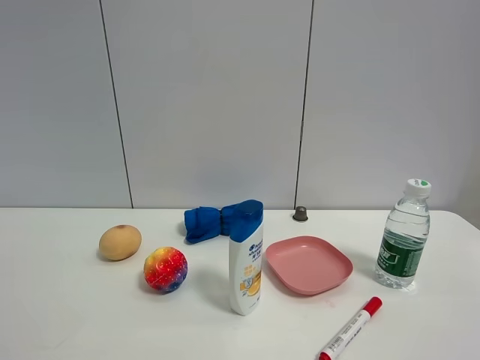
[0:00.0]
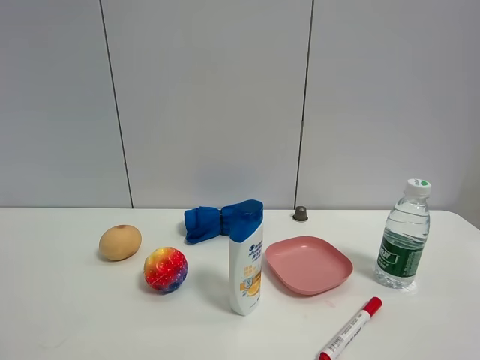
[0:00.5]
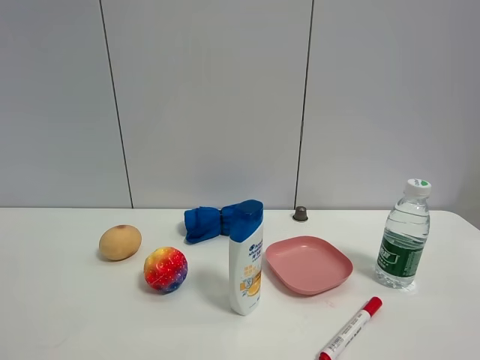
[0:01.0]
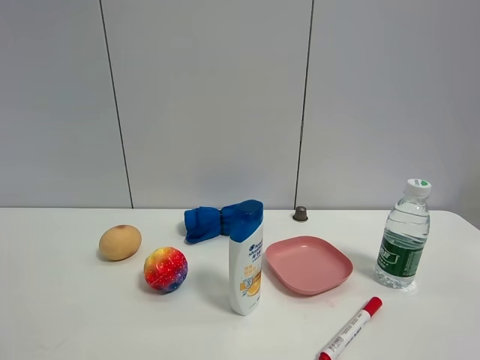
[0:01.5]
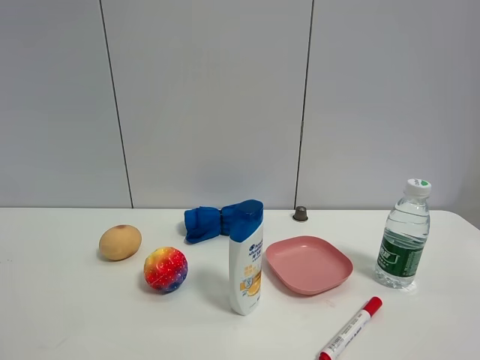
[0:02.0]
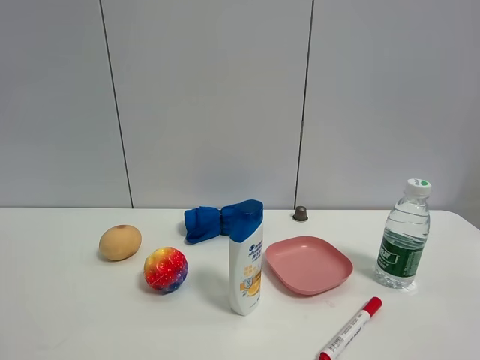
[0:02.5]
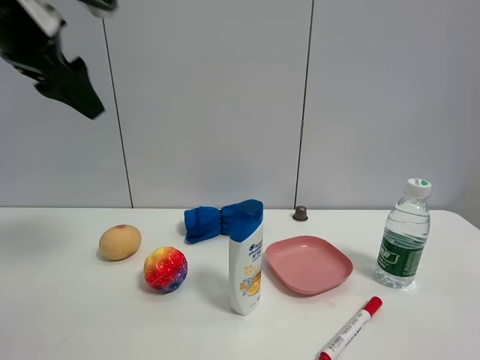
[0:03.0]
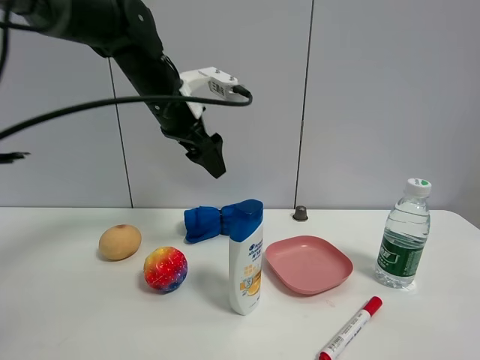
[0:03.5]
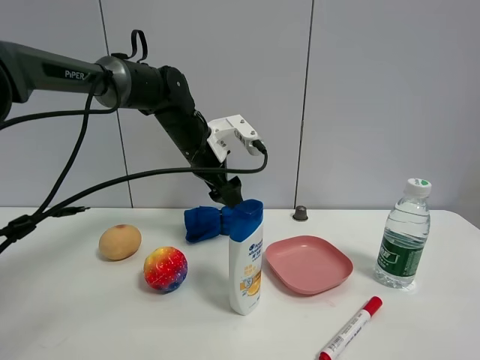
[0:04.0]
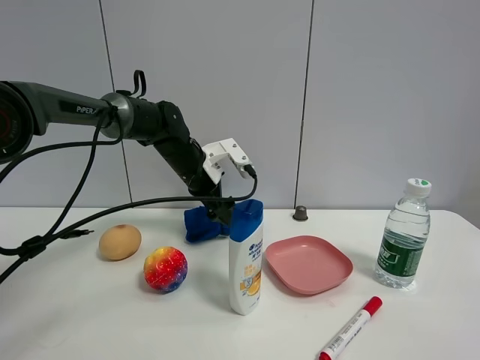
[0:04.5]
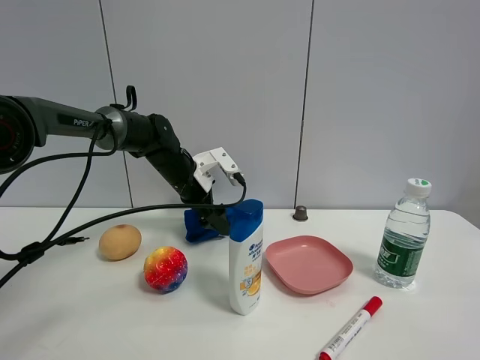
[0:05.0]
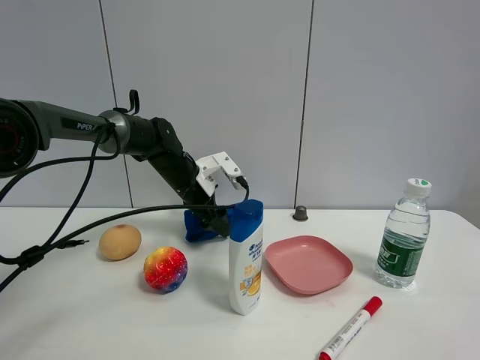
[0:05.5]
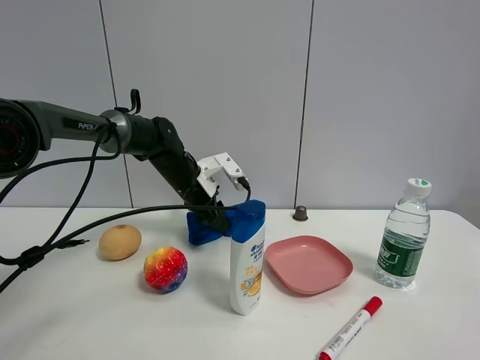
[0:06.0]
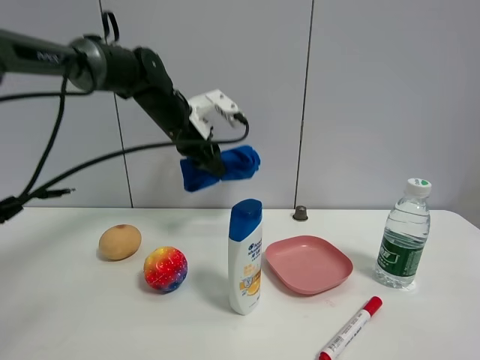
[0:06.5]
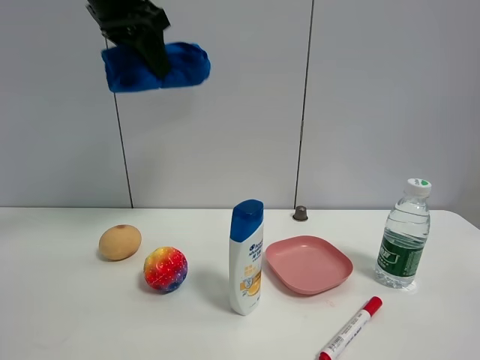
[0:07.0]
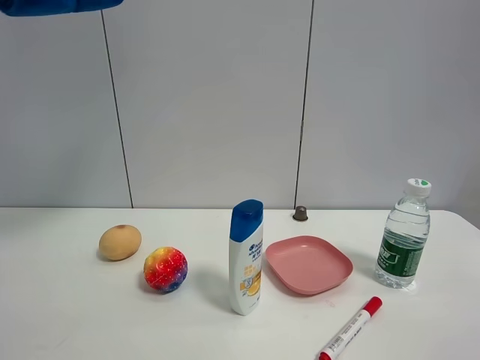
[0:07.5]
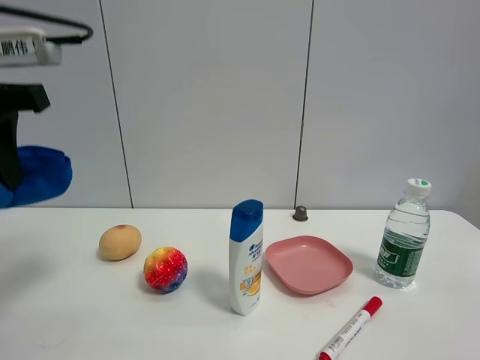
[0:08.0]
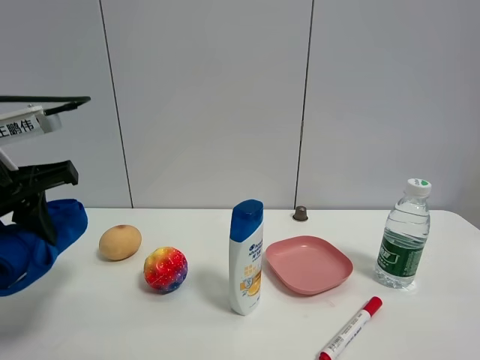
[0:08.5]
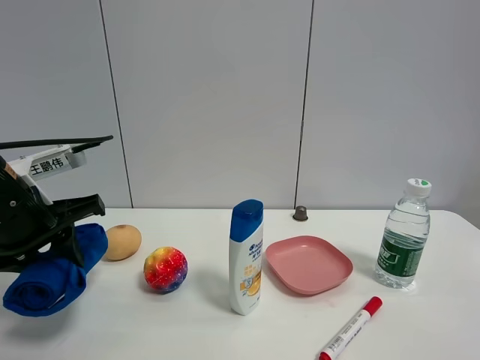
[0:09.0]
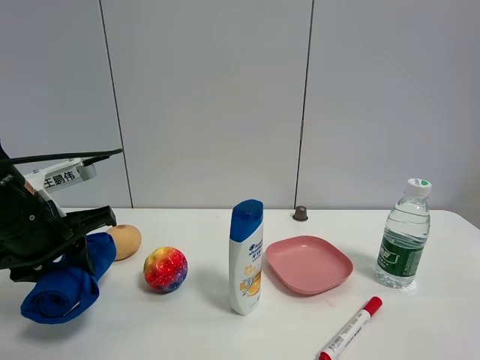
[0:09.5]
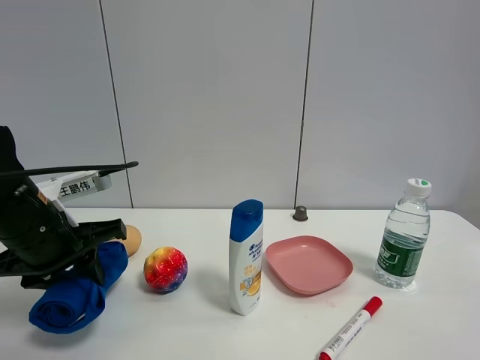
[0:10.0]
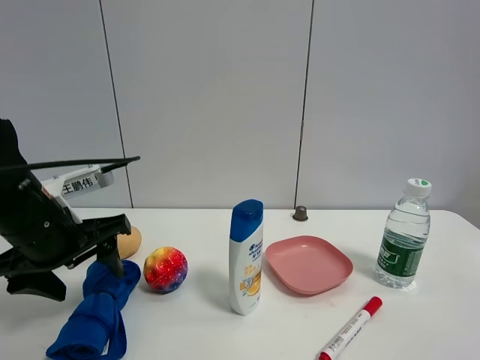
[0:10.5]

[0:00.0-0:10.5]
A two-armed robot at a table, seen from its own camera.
Task of the whole recording: the gripper move the object.
Step, 0:00.0 to 0:06.0: Grasp the blue towel with the left gripper.
0:02.0 to 0:04.0: The left gripper heads forward and to the right, covering about 50 cm.
0:04.0 to 0:06.5: The left gripper closes up.
0:06.5 to 0:08.5: The left gripper shifts some 30 cm backward and to the left, and reaches some 25 cm upward, then returns.
0:08.5 to 0:10.5: The left gripper moves downward, some 5 cm, and opens.

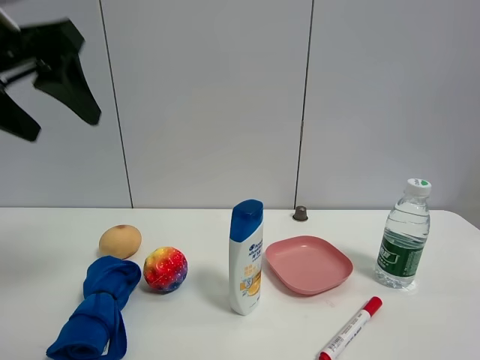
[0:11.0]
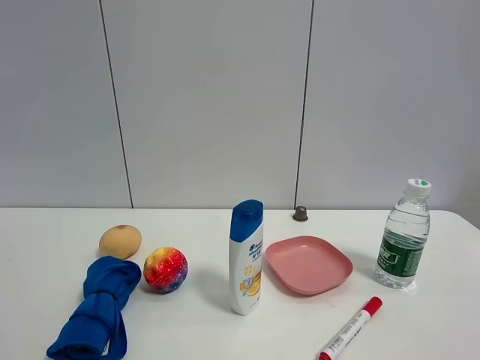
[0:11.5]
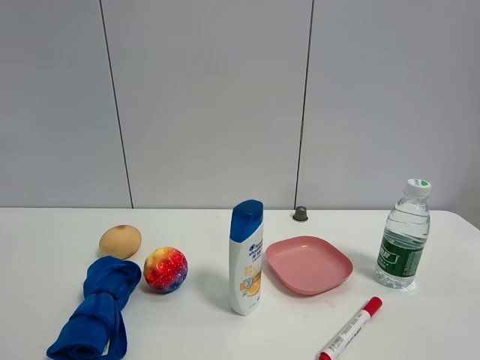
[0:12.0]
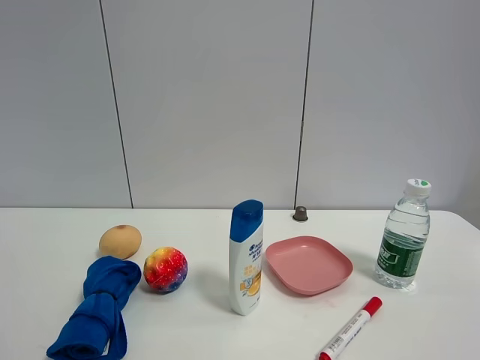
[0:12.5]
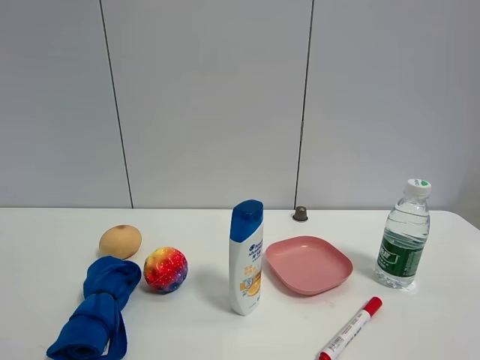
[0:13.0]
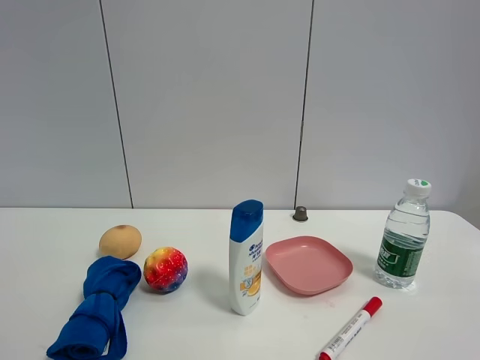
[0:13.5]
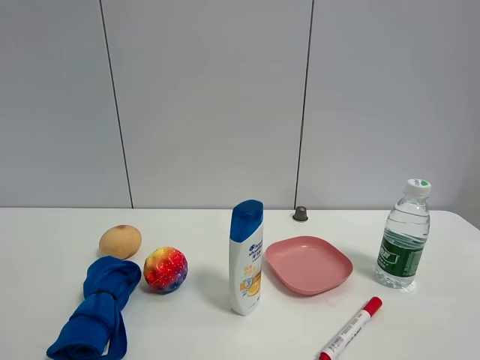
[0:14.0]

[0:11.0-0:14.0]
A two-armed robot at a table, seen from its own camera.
Task of the whole recording: the gripper move the object.
0:11.0 to 0:12.5: The left gripper heads backward, covering approximately 25 cm.

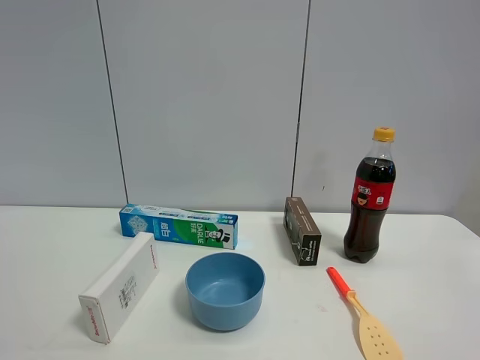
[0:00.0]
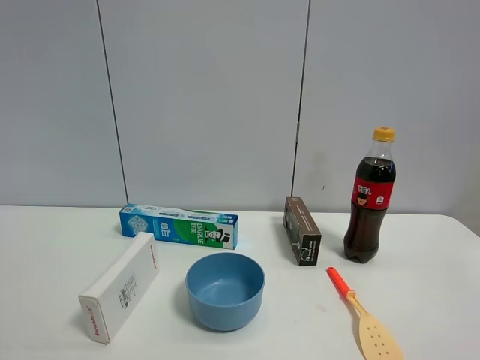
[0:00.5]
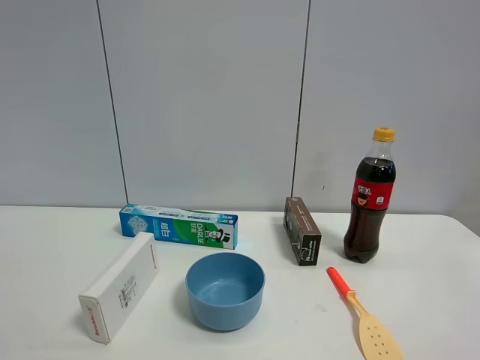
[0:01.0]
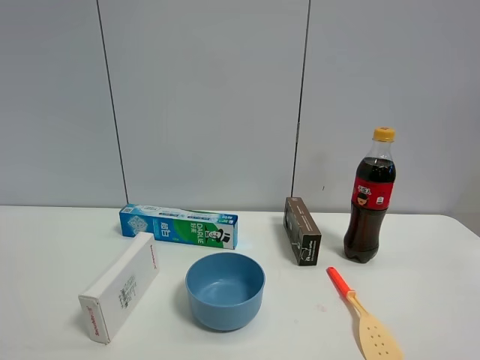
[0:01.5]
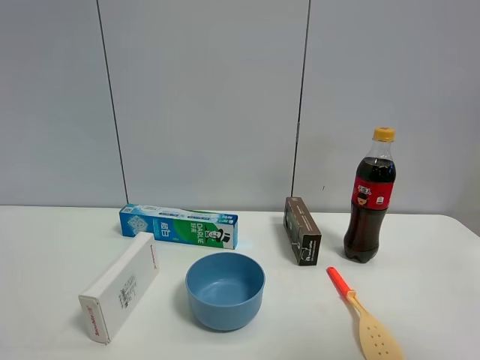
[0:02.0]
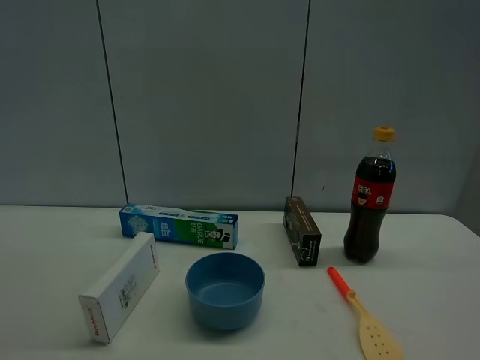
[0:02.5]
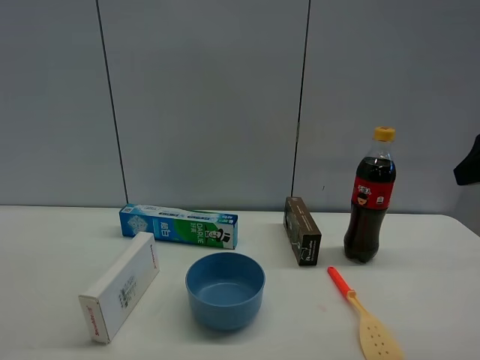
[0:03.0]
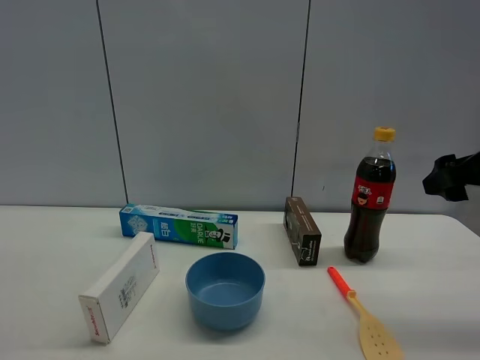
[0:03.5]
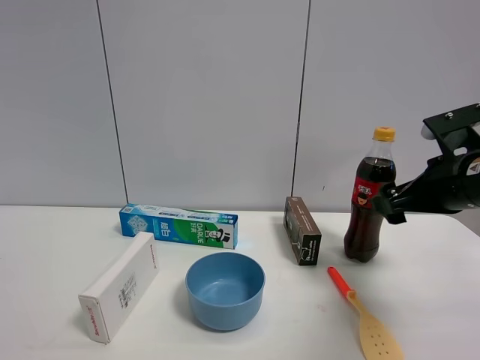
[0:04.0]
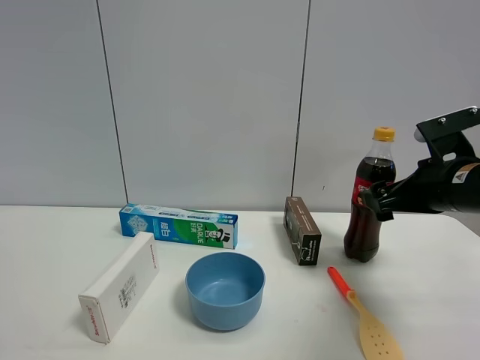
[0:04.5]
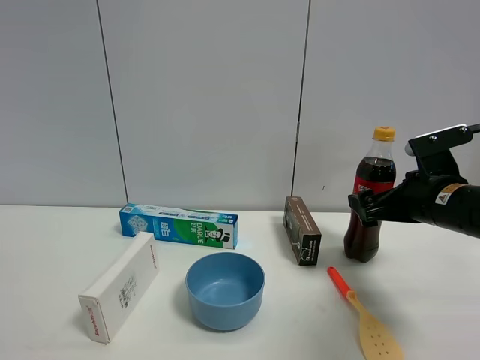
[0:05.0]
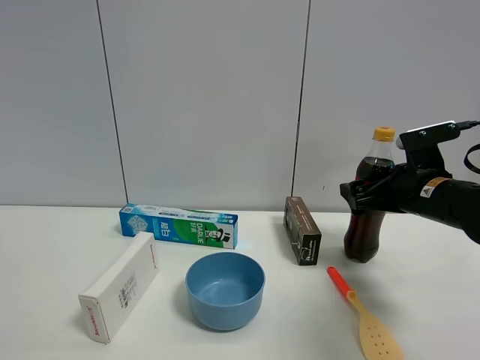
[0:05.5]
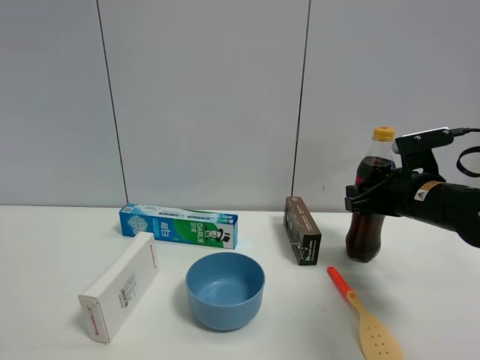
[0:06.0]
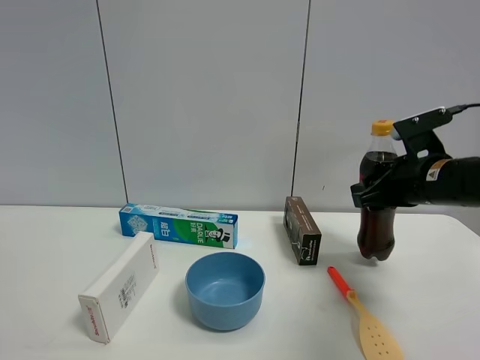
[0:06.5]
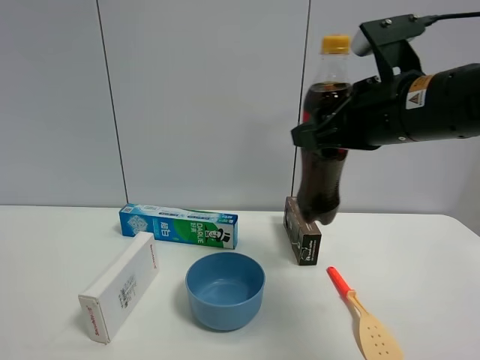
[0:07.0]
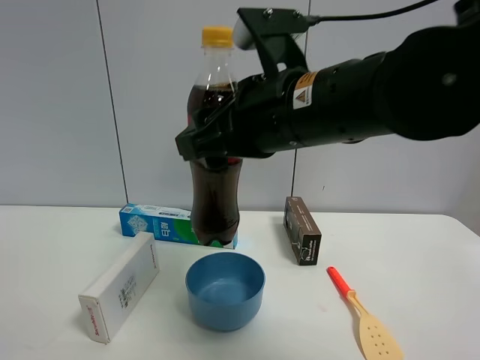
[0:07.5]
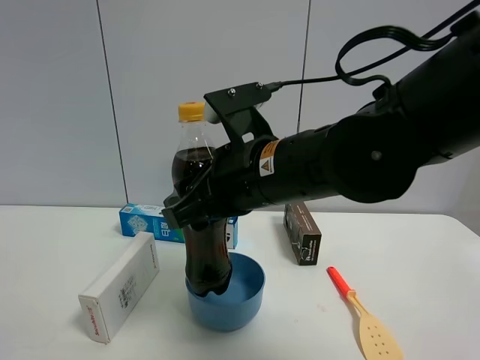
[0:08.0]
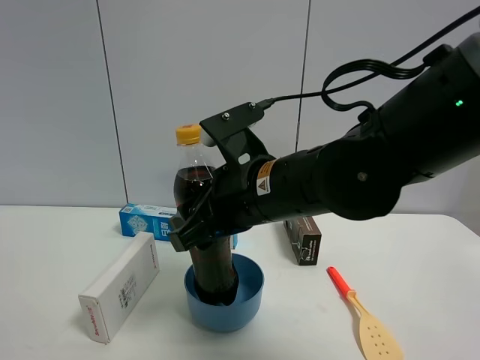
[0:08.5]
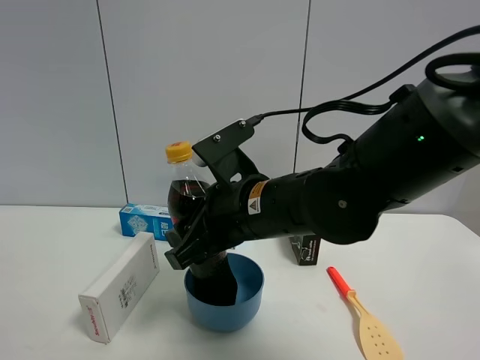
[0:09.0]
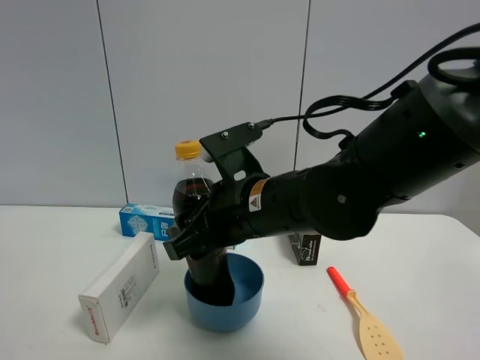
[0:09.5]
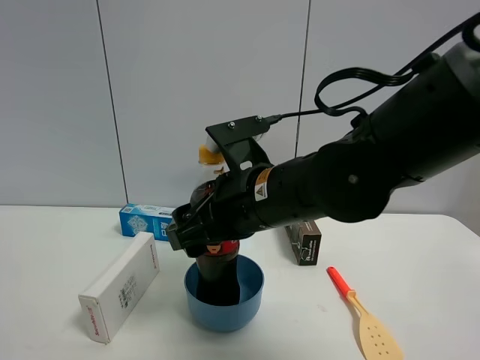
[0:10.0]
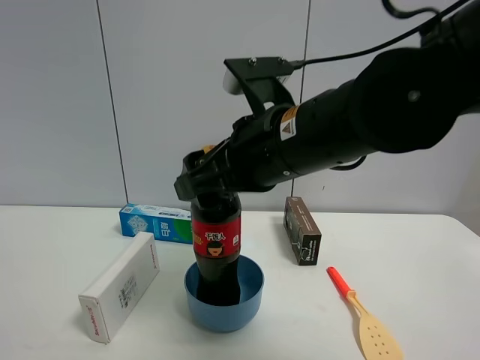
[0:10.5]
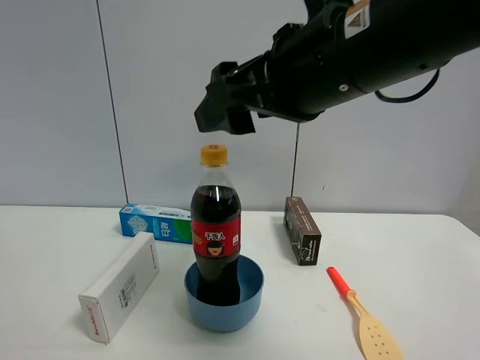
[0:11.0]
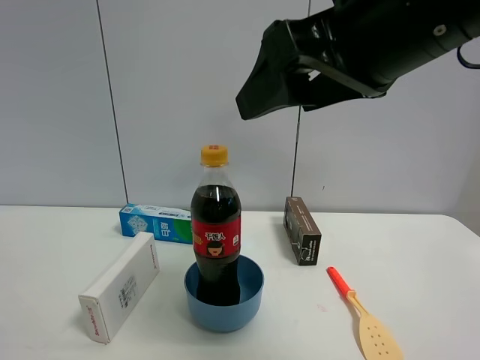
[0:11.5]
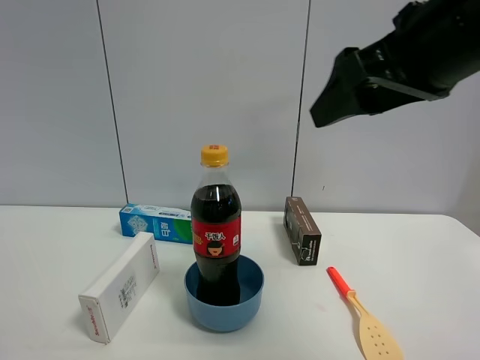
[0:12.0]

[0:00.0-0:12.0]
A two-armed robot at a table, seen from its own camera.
Task of the whole recording: the gripper move the object.
Step, 0:00.0 to 0:05.5: Grasp the coke with the right gripper.
Step, 0:06.0 to 0:10.0: Place the coke on the table with the right gripper.
0:00.0 to 0:02.0: The right gripper heads upward and forward, covering approximately 10 cm.
0:02.0 to 0:04.0: The right gripper moves forward and downward, roughly 30 cm.
0:04.0 to 0:06.0: The right gripper travels forward by approximately 5 cm, and closes.
0:06.0 to 0:08.0: The right gripper moves to the left and backward, about 25 cm.
0:08.0 to 0:10.0: The right gripper opens up.
0:10.0 to 0:12.0: The right gripper heads upward and to the right, covering roughly 20 cm.
